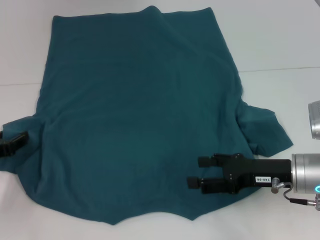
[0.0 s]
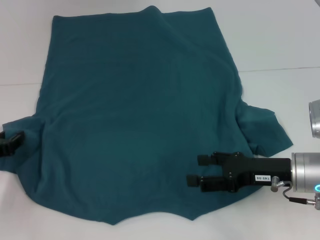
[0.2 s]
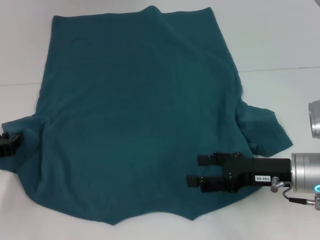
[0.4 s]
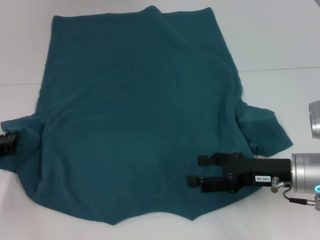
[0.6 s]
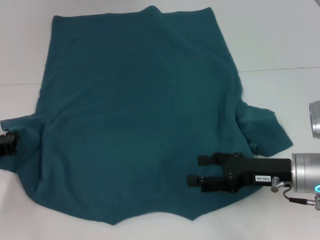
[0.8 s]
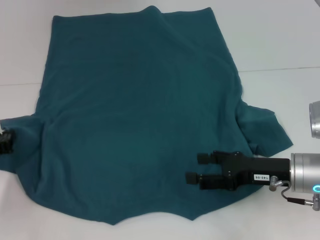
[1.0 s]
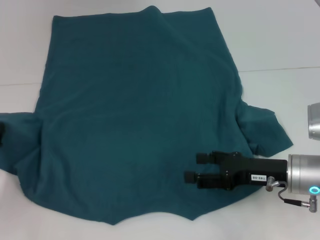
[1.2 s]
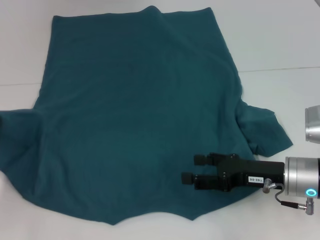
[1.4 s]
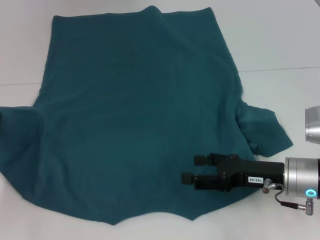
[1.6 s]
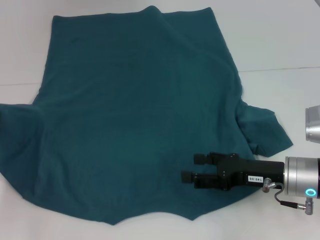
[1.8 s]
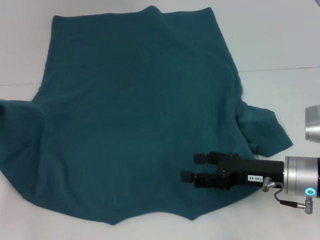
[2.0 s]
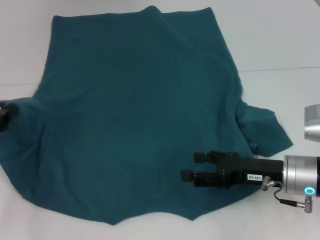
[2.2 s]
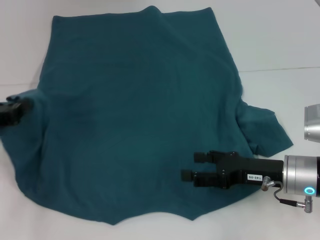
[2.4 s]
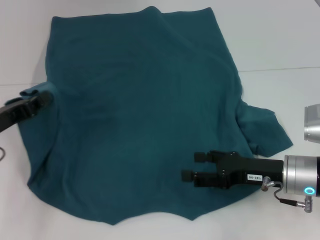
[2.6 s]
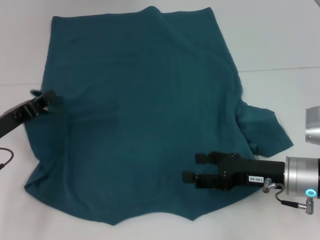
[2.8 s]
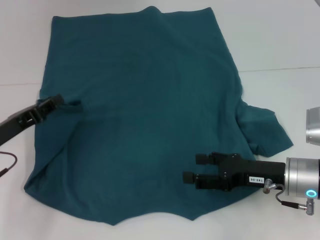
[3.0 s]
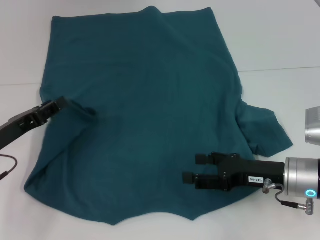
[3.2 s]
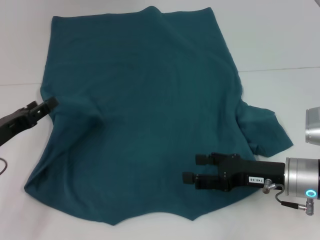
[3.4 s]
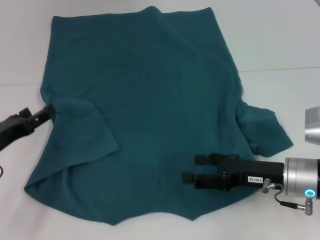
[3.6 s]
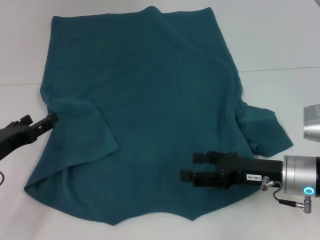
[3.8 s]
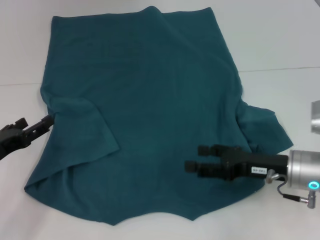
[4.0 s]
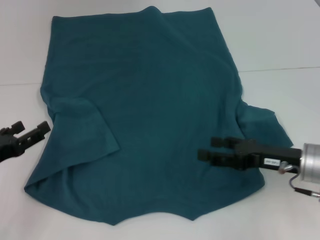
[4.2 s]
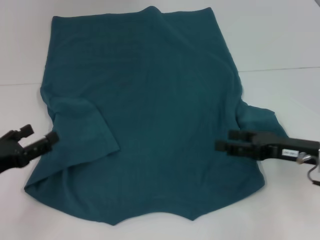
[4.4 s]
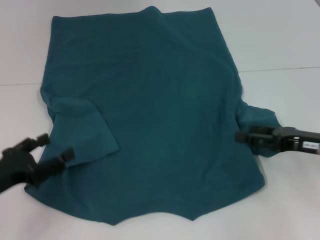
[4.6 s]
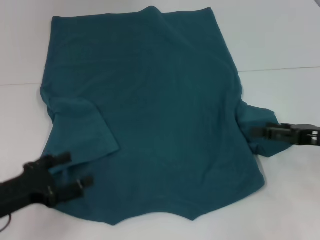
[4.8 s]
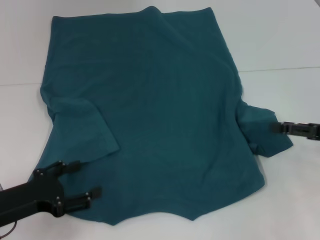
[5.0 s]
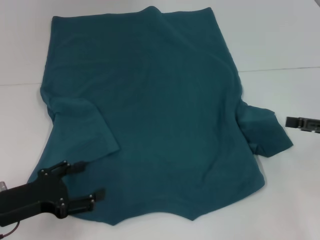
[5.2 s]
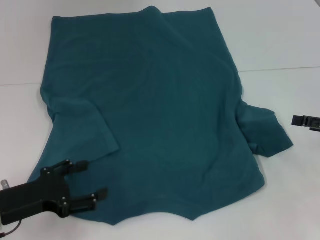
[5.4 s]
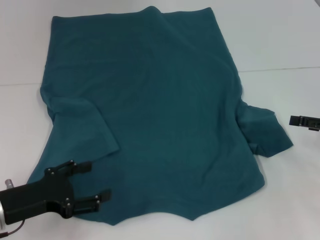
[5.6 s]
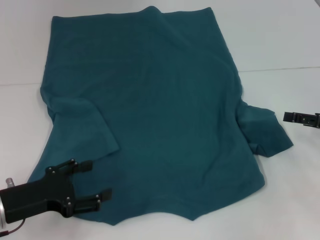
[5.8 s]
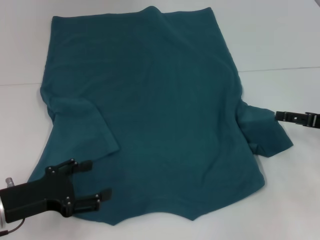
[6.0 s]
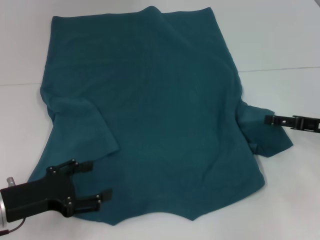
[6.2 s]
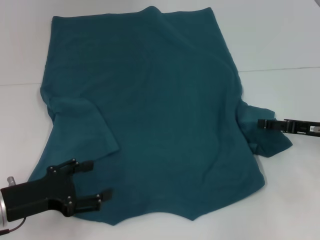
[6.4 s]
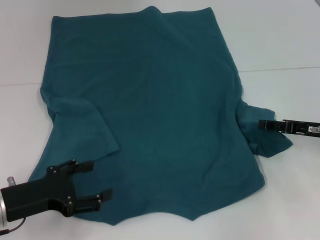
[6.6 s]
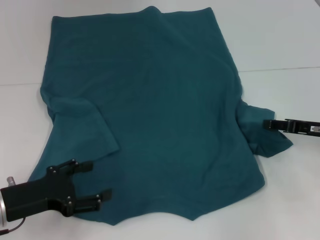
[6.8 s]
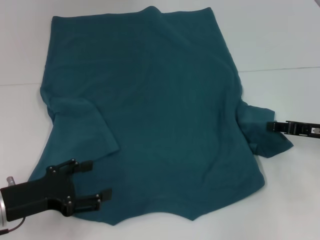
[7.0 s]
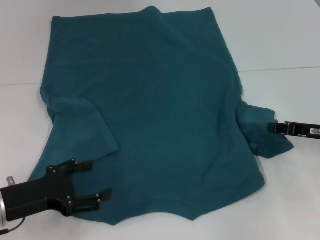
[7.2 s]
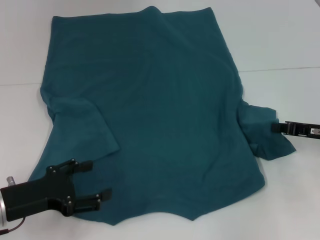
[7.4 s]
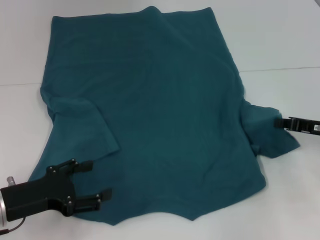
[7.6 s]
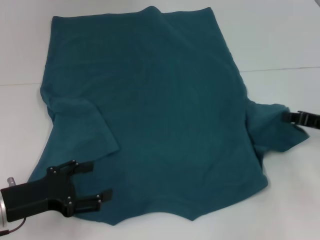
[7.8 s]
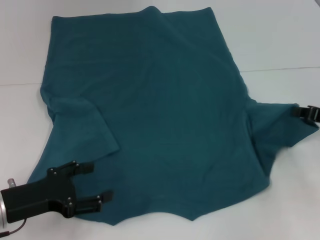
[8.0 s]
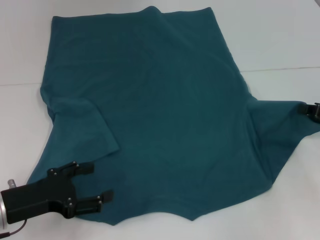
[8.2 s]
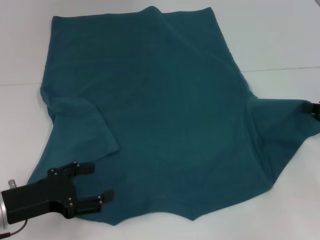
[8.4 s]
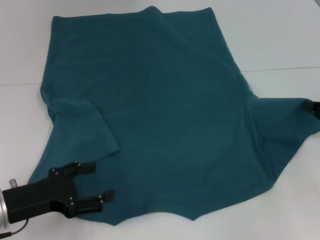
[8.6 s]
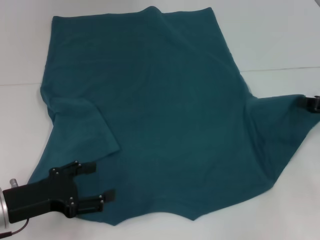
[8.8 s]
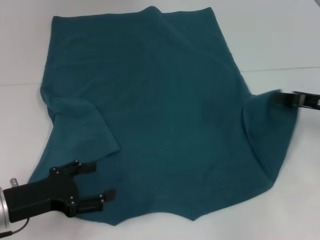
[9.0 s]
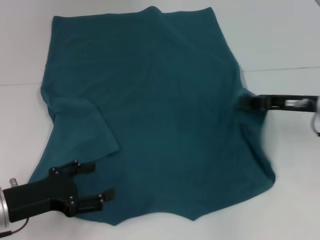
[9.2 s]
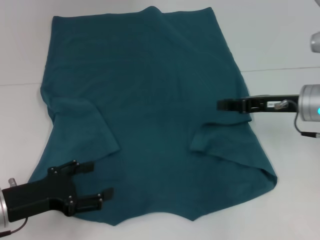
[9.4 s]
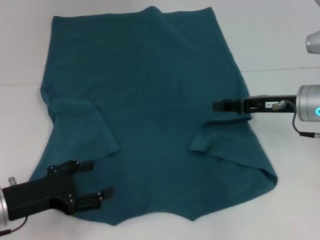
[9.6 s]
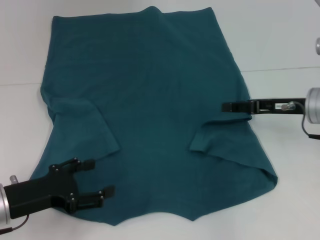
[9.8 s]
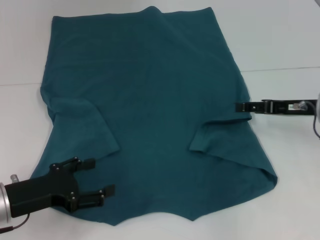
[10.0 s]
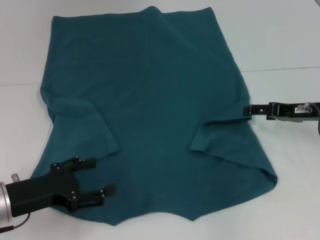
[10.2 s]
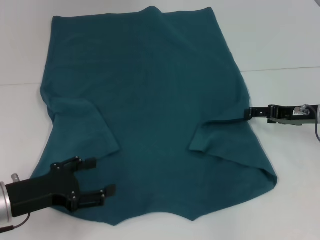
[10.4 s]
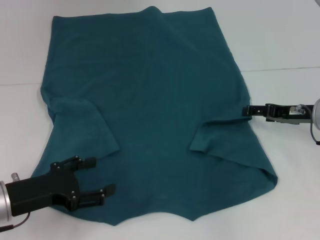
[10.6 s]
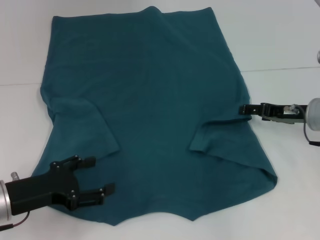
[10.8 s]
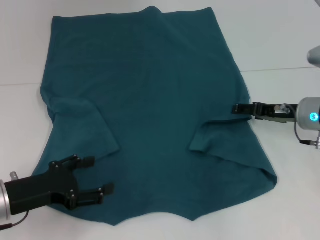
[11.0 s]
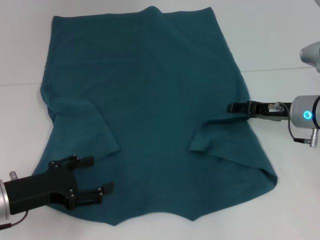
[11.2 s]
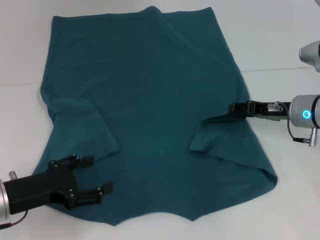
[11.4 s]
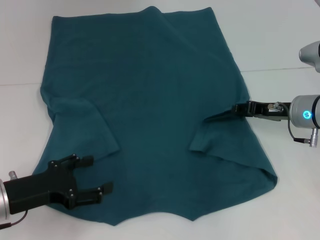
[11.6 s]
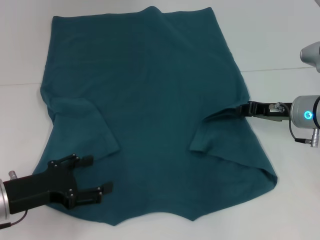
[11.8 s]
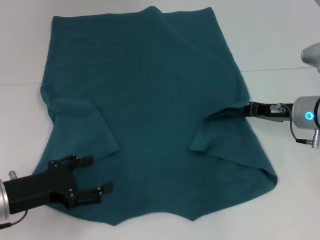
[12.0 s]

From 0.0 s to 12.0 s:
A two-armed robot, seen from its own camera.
Step, from 0.0 s to 4.0 s: Fold the bottom left sleeve with your left hand.
From 0.0 s to 1.6 s: The left gripper closes its fingers.
From 1.6 s to 3.0 s: The left gripper is displaced to the right by some 5 cm.
From 3.0 s to 4.4 s: The left gripper moves backward, roughly 5 cm, and opens, while the right gripper moves about 5 cm.
From 4.4 s to 6.0 s: The right gripper travels to the right by about 10 cm.
From 6.0 s to 7.6 s: The right gripper closes.
From 7.6 s to 9.0 s: The grippers move only a little.
From 9.0 s to 10.4 s: The right gripper opens up.
From 10.4 s to 12.0 s: The right gripper closes its fingers.

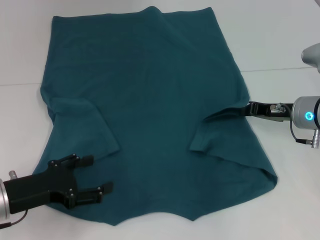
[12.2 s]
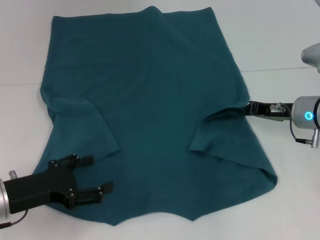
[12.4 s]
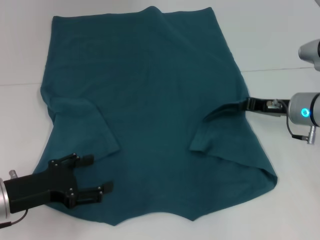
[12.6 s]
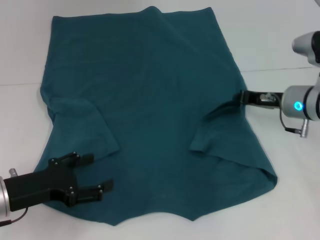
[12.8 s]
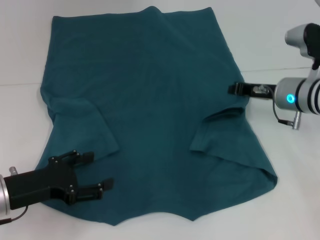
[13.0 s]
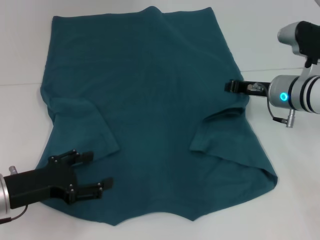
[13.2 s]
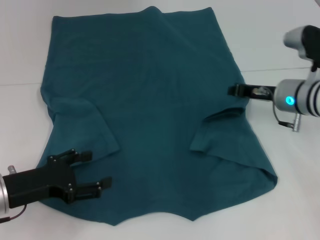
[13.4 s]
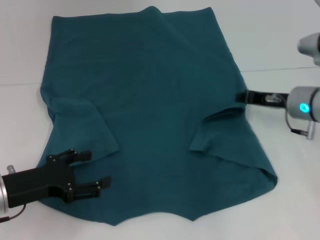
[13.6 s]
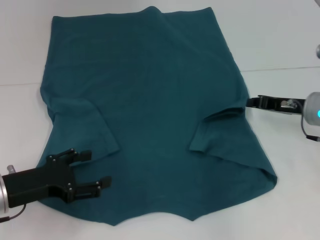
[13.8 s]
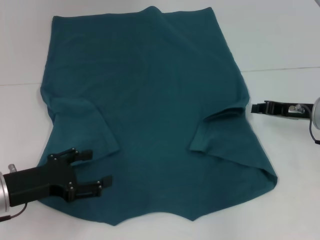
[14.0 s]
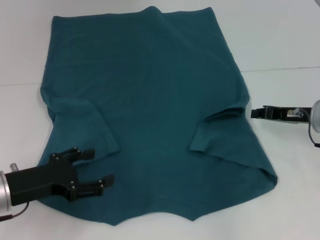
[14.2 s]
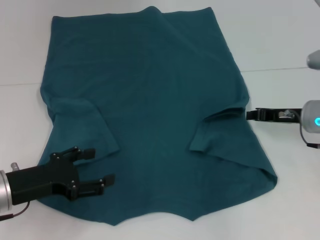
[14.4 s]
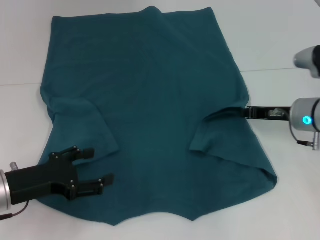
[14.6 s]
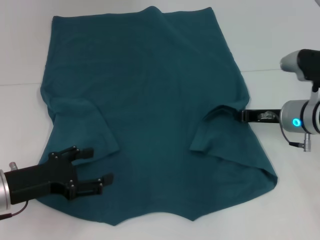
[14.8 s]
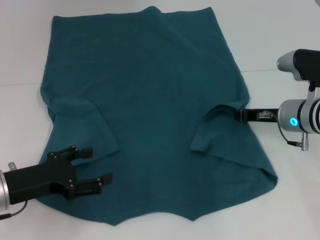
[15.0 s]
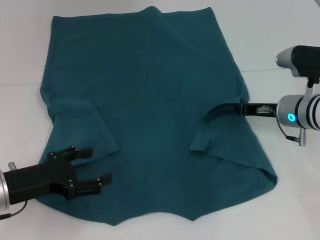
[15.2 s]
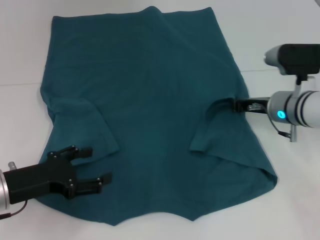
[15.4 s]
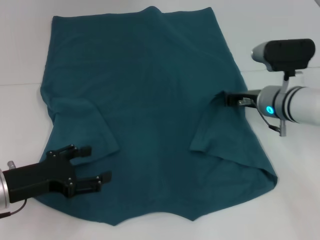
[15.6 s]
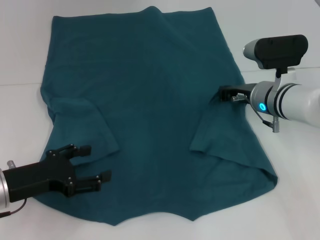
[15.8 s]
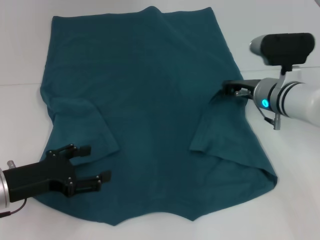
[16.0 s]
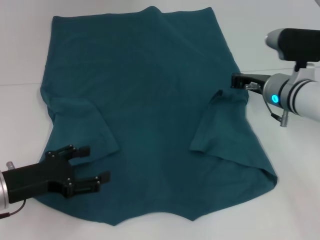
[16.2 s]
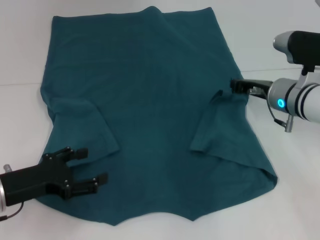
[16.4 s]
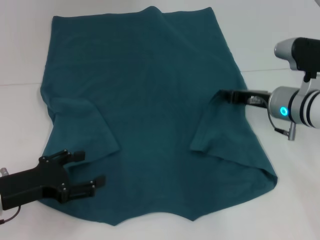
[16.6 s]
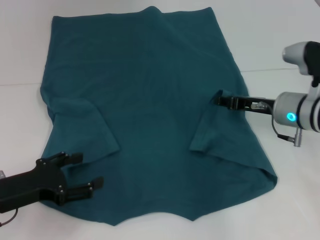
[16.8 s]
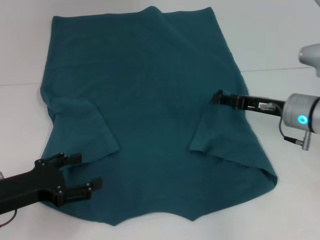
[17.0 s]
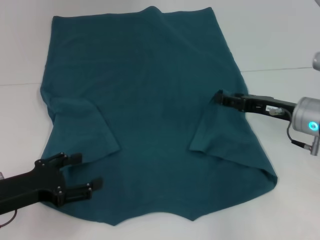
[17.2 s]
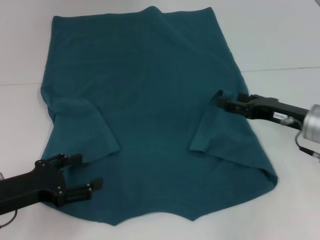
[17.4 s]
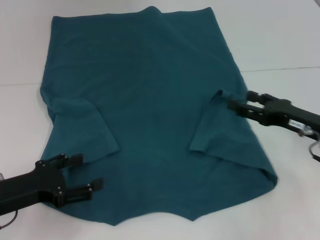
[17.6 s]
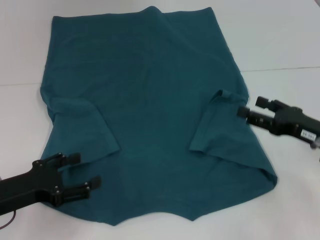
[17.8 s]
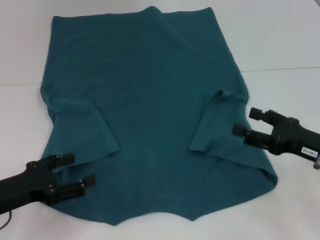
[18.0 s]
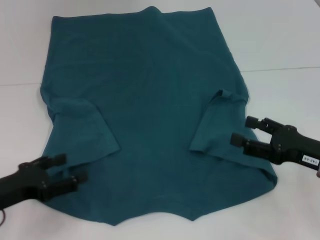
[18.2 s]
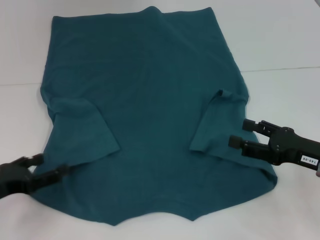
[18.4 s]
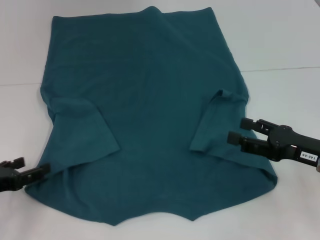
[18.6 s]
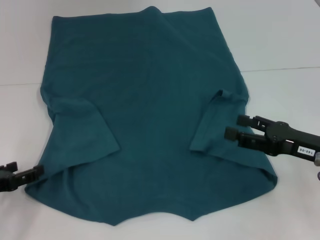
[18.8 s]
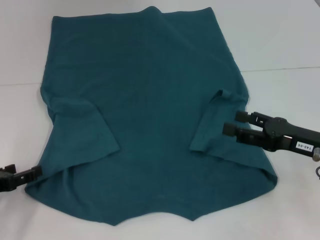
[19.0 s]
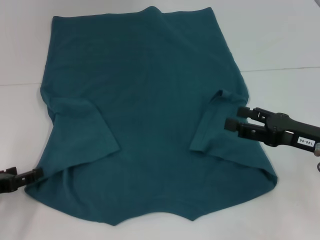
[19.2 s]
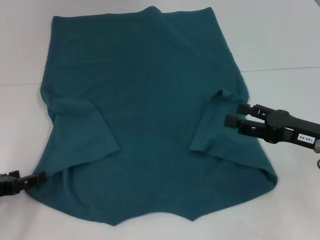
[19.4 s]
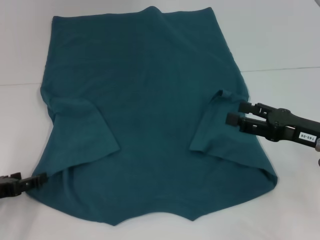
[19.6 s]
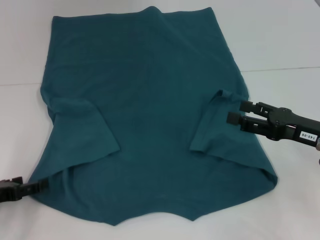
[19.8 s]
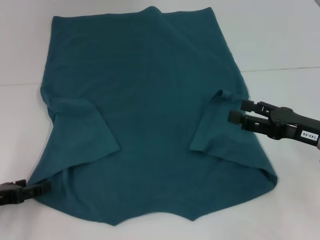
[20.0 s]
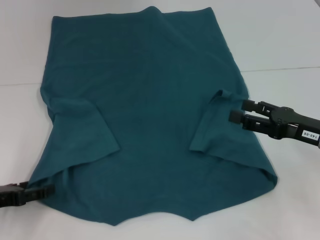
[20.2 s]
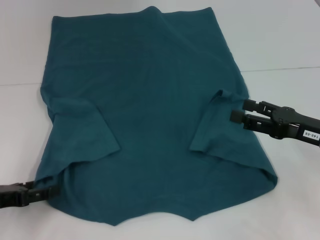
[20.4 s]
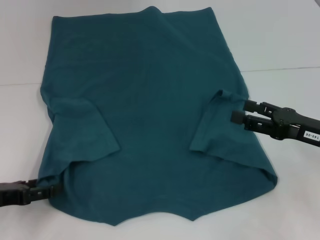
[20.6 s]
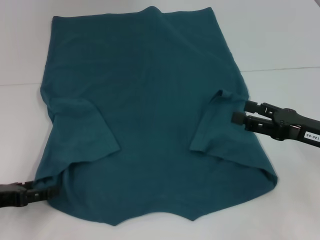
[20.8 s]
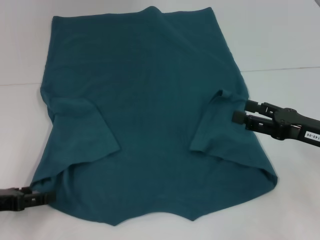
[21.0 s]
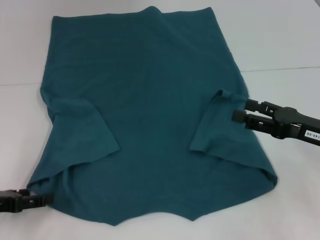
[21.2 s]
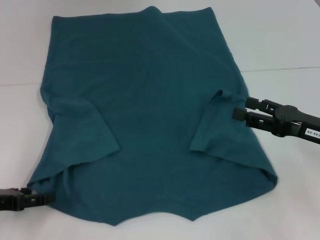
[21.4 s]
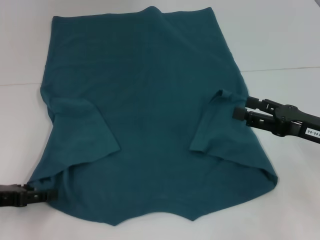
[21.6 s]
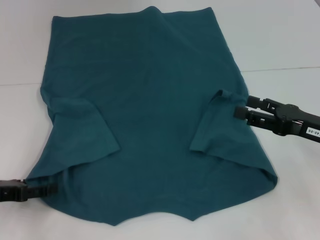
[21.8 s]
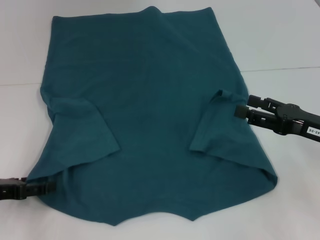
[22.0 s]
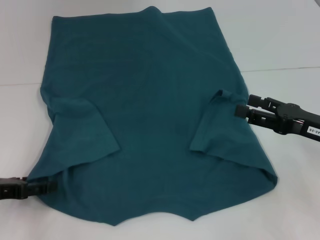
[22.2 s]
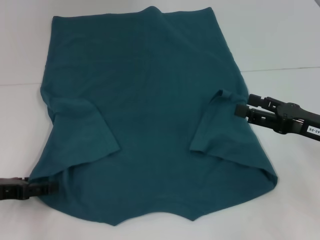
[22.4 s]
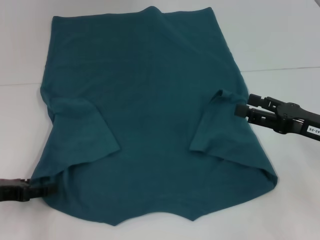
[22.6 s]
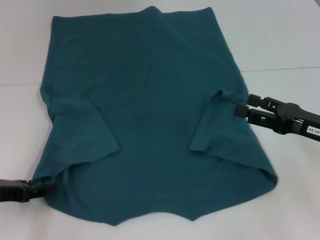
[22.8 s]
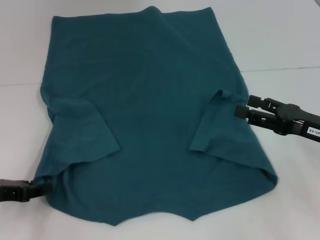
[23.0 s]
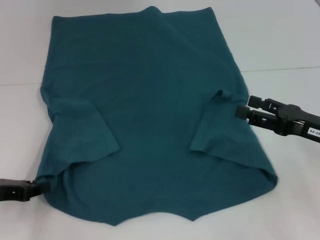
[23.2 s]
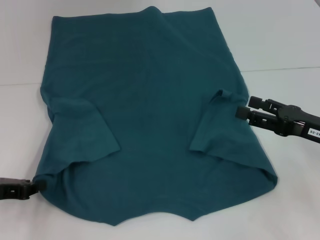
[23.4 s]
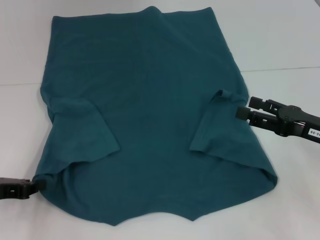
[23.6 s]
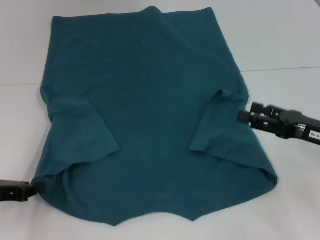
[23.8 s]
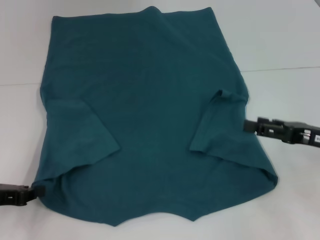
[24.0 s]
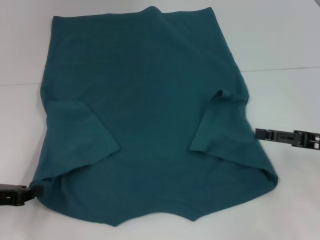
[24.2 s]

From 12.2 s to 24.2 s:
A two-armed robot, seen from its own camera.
Step, from 12.2 s to 16.2 s: Fold the bottom right sleeve to the right.
Step, from 16.4 s to 23.6 s: Grab the bottom left corner with your left hand.
From 12.2 s to 15.2 s: The grippers move only a little.
From 15.2 s to 16.6 s: There are only small adjustments of the grippers.
From 16.6 s to 18.2 s: The right gripper moves backward and to the right, roughly 15 cm, and opens its fingers.
From 19.8 s to 22.6 s: The grippers make only small movements.
From 22.6 s to 24.2 s: The left gripper closes.
